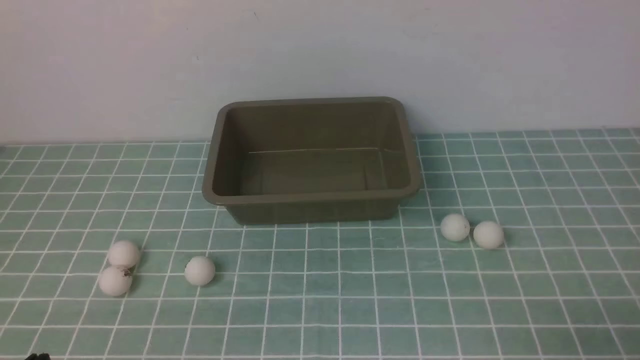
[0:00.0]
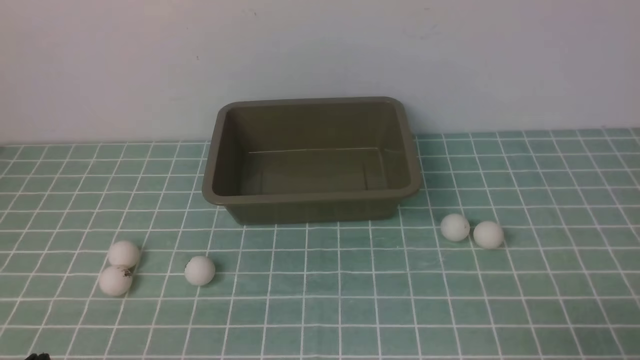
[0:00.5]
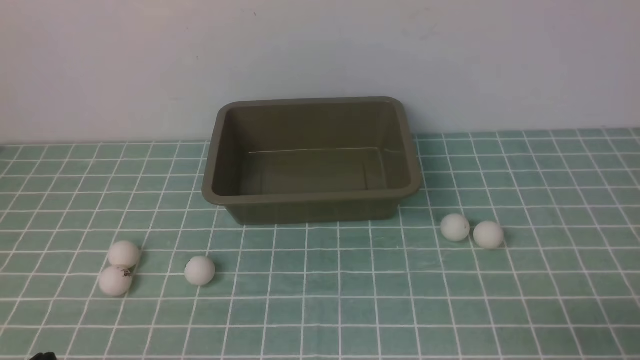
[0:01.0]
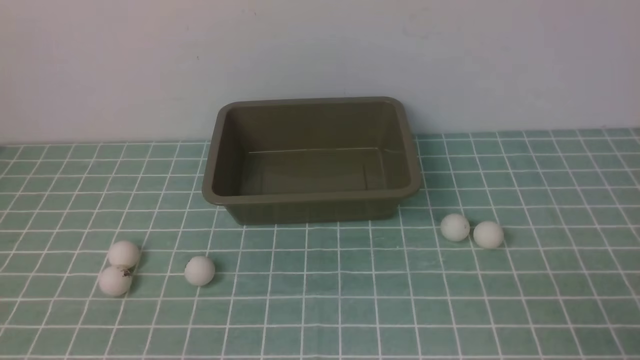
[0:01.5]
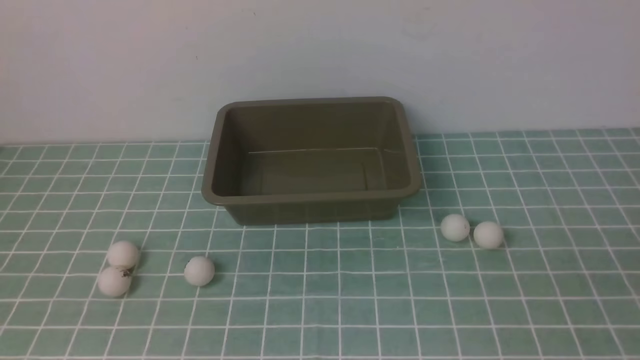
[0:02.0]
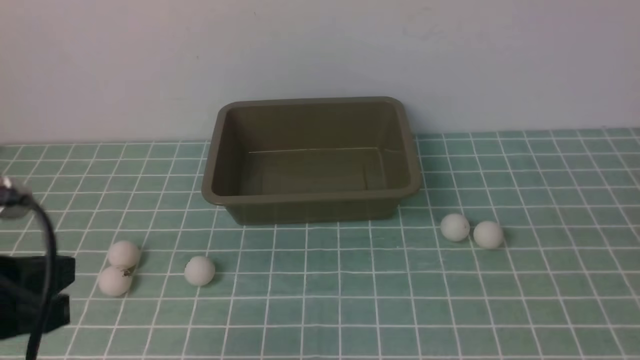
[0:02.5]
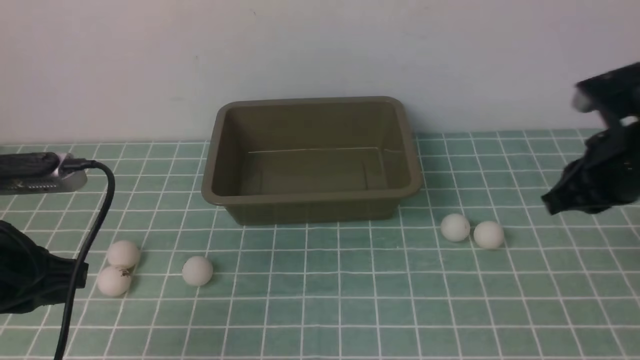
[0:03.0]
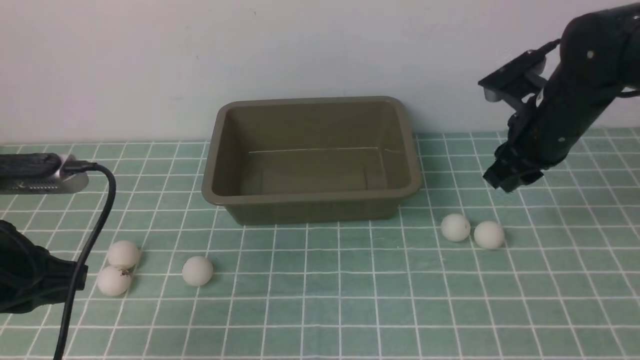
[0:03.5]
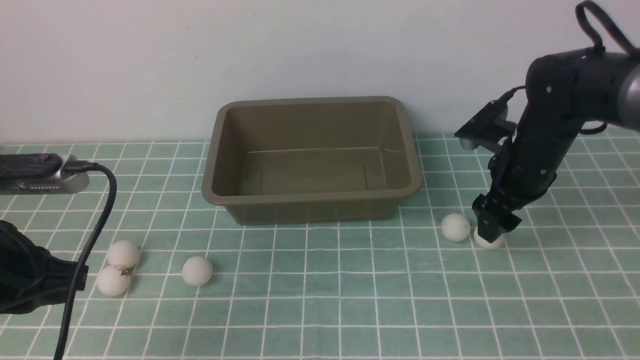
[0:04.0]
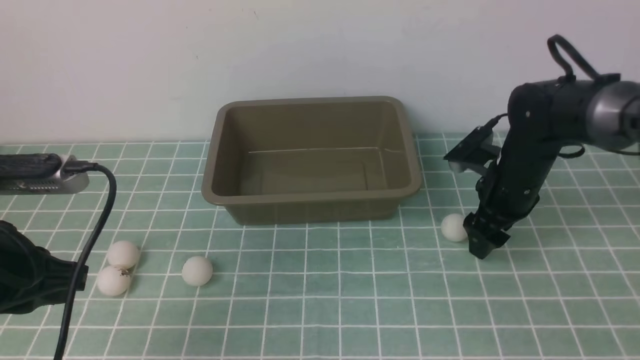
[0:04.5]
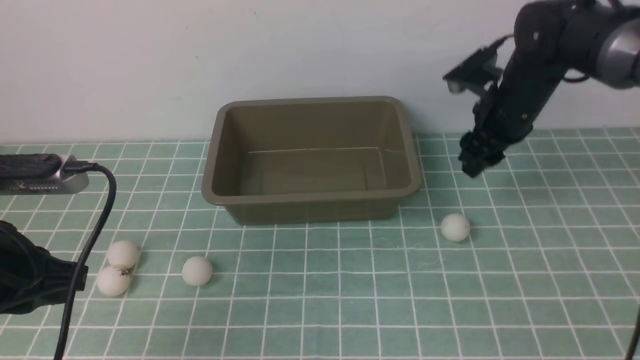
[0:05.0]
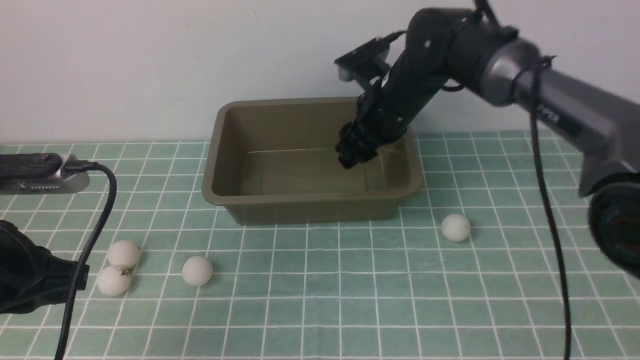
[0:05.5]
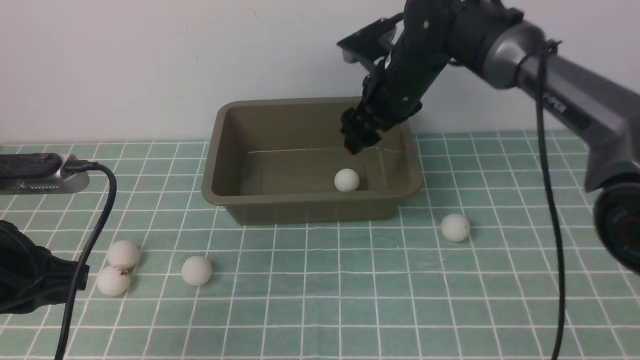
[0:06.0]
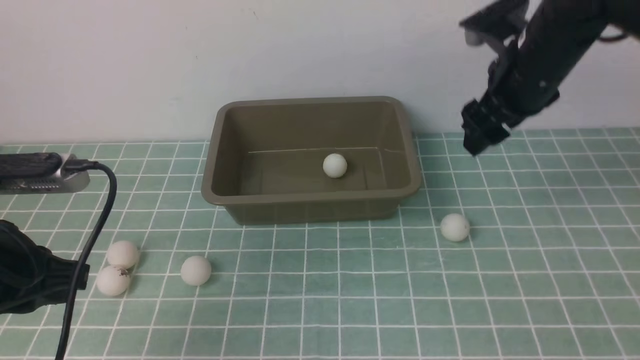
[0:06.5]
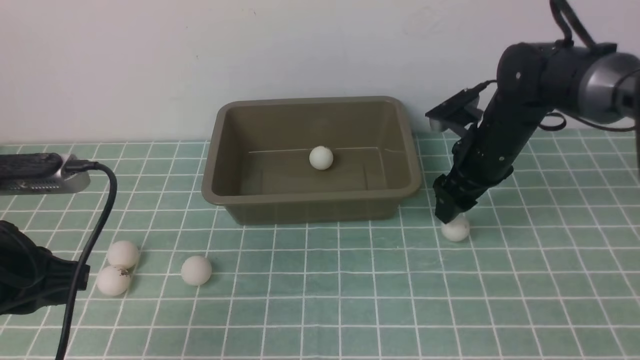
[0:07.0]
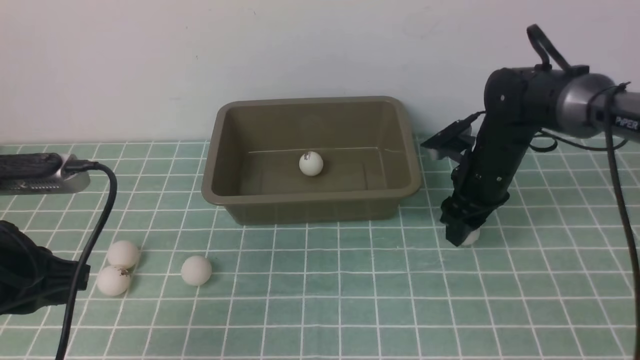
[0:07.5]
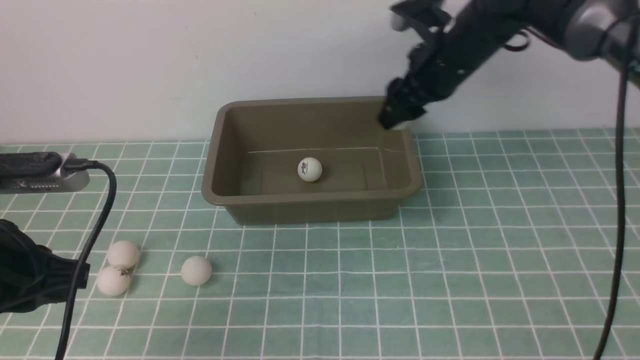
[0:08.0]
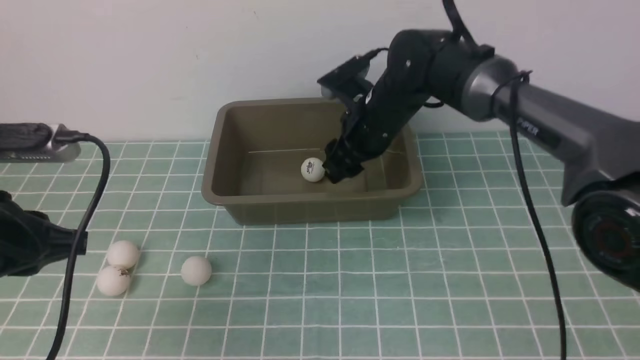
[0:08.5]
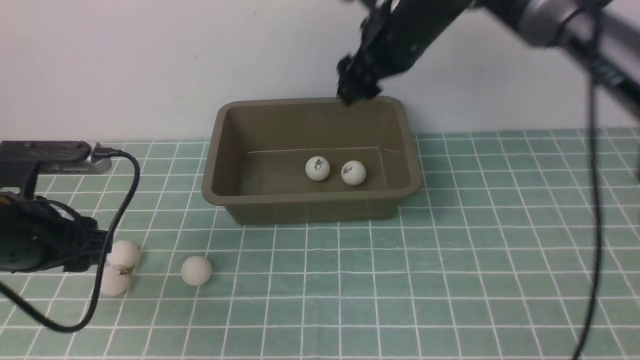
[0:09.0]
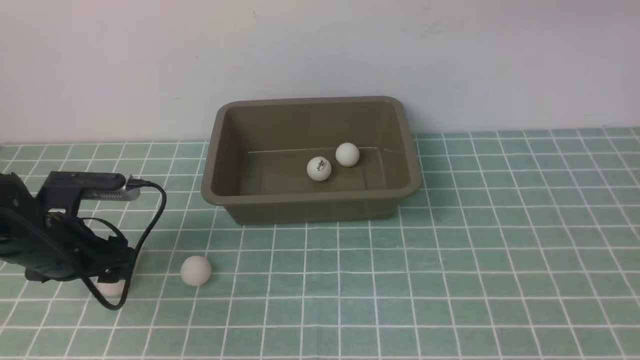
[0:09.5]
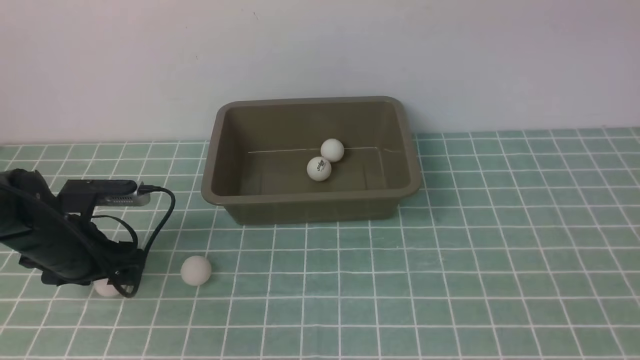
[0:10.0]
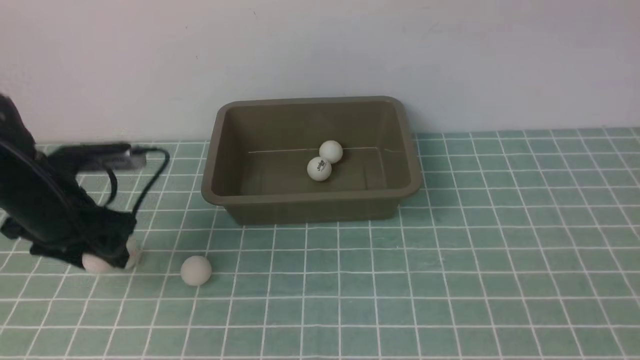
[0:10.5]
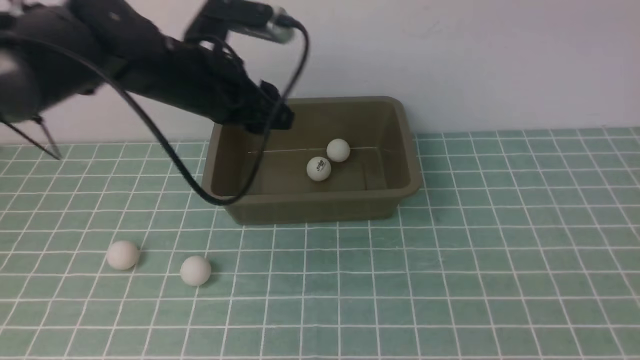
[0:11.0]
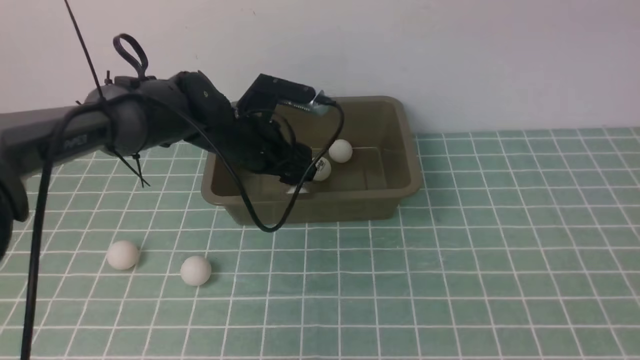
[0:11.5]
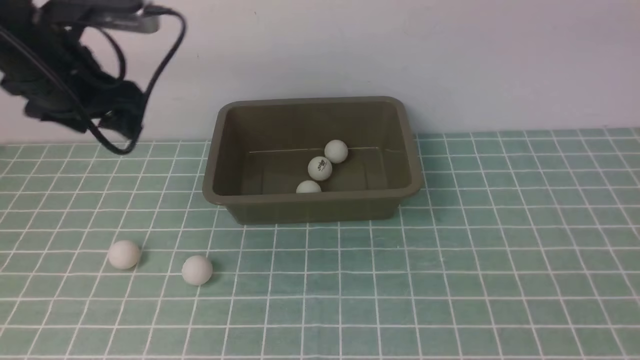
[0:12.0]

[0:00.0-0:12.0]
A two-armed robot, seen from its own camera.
Step, 0:00.0 to 0:05.0: use the right arm to clamp the table tennis ball closest to it.
Step, 0:05.5 to 0:06.0: use the right arm to put the table tennis ball into the box.
Step, 0:06.5 to 0:07.5: use the right arm to clamp the table tennis ball closest to it.
Step, 0:08.0 to 0:08.5: use the right arm to put the table tennis ball into the box.
Step, 0:09.0 to 0:10.0: use the left arm to clamp the table tennis ball closest to it.
Step, 0:11.0 to 0:11.5: use the left arm to put the table tennis ball into the box.
0:02.0 to 0:04.0: The left gripper moves forward, about 15 cm, while the right gripper moves forward, some 35 cm, and opens up.
0:04.0 to 0:06.0: The right gripper travels upward by roughly 15 cm.
0:06.0 to 0:08.0: The right gripper travels downward and back again, about 15 cm each way.
0:08.0 to 0:10.0: The left gripper goes about 20 cm downward and forward, and opens its fingers. The right gripper shifts roughly 40 cm upward, backward and to the right.
0:10.0 to 0:12.0: The left gripper is displaced upward by approximately 15 cm, and goes to the right and returns, some 20 cm each way.

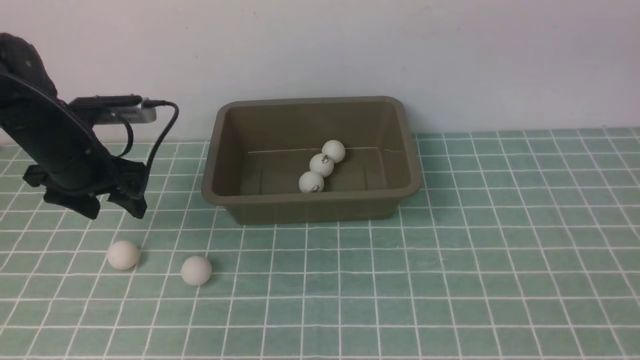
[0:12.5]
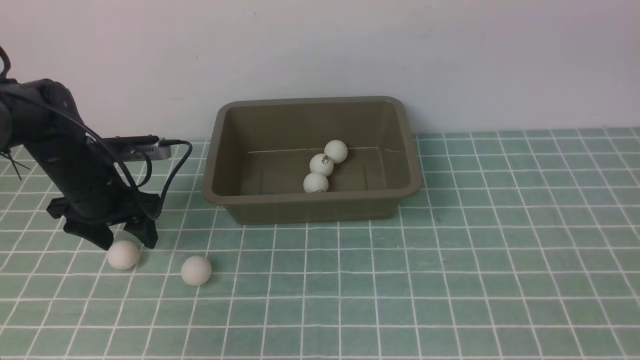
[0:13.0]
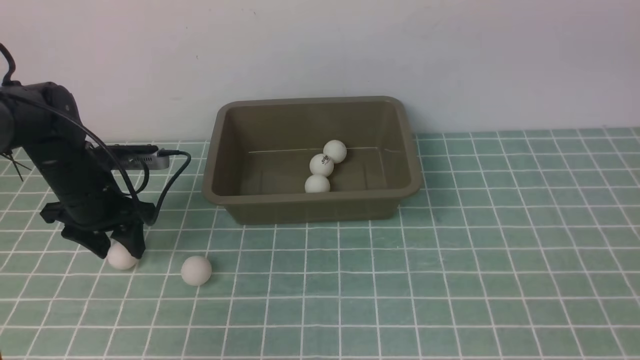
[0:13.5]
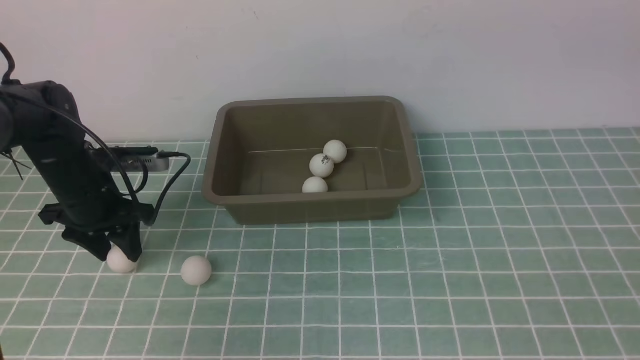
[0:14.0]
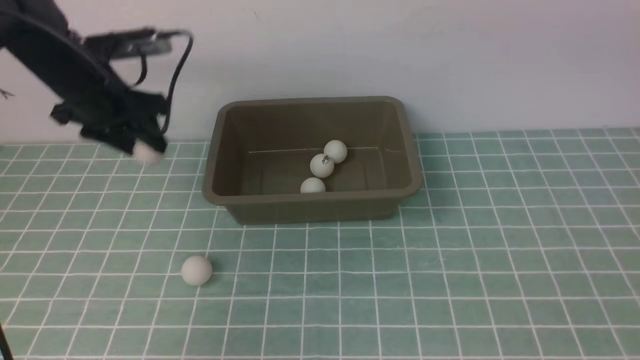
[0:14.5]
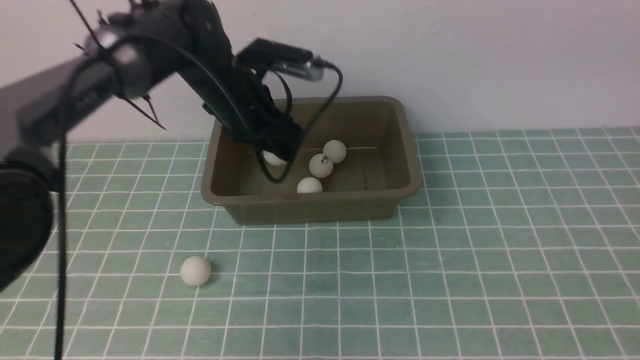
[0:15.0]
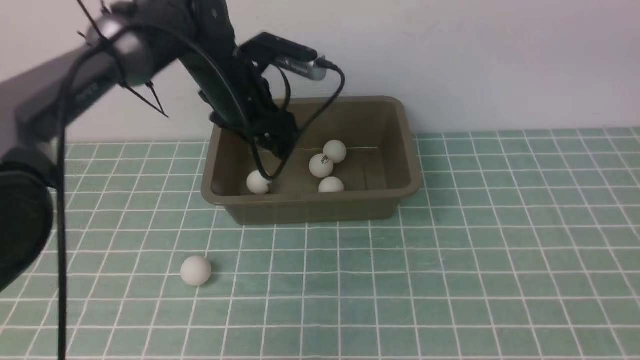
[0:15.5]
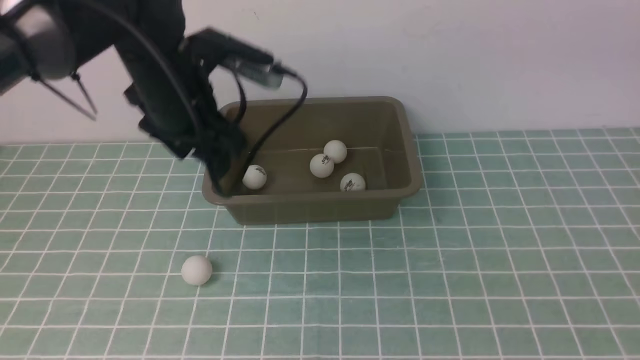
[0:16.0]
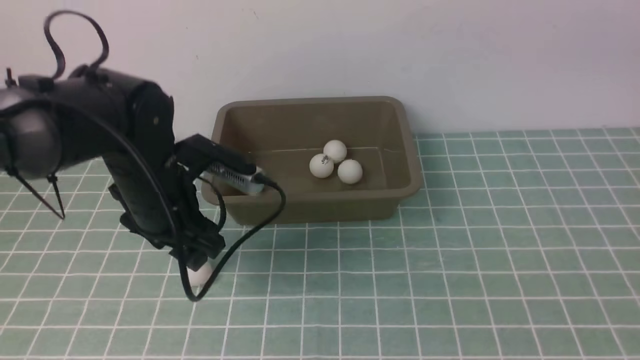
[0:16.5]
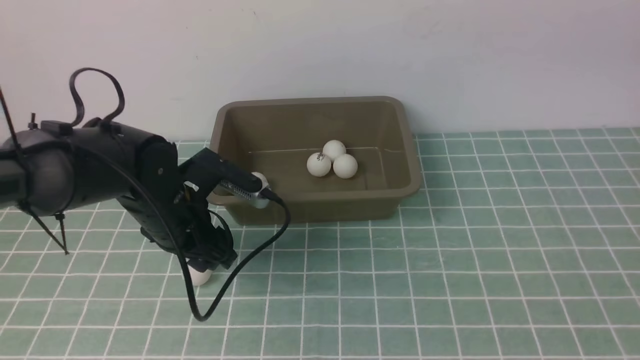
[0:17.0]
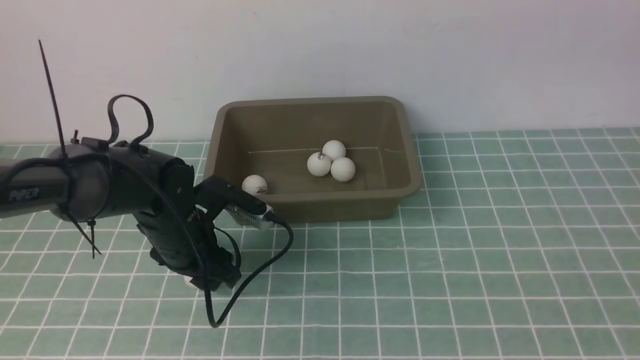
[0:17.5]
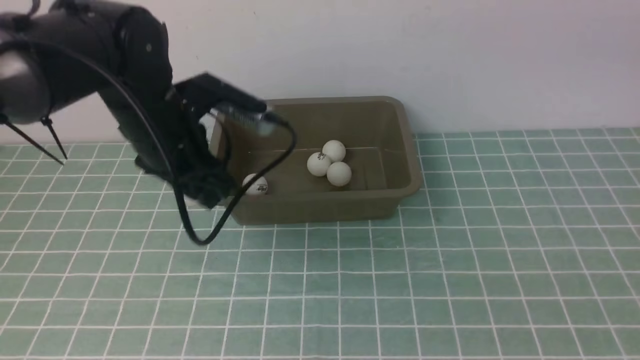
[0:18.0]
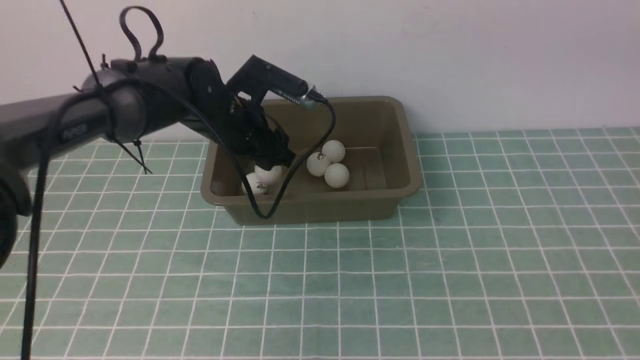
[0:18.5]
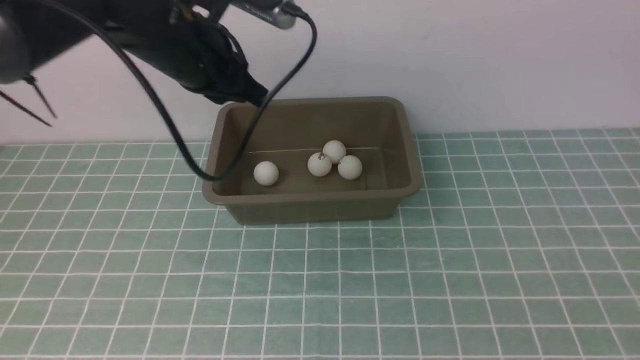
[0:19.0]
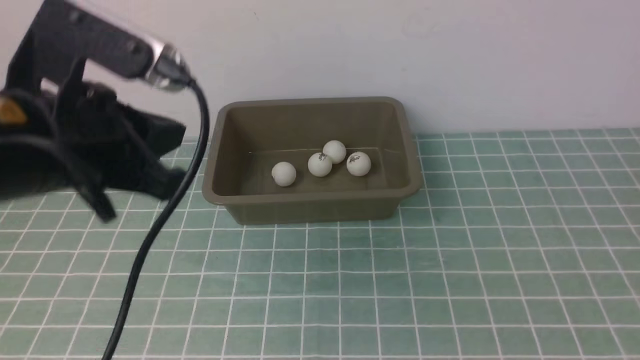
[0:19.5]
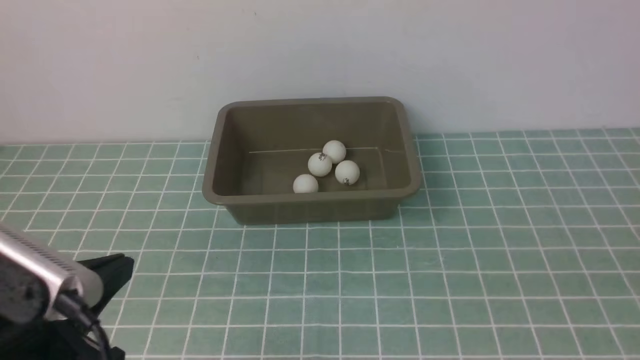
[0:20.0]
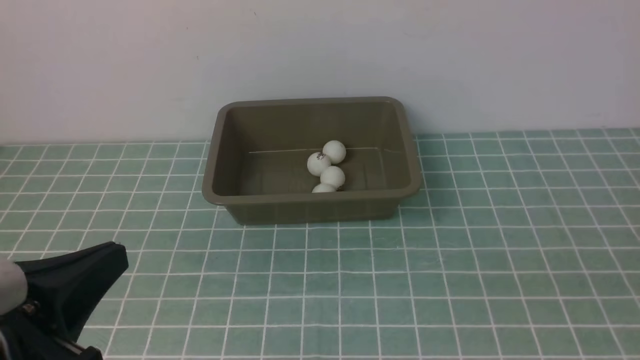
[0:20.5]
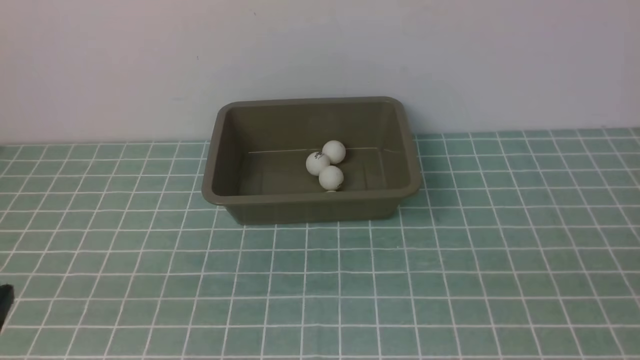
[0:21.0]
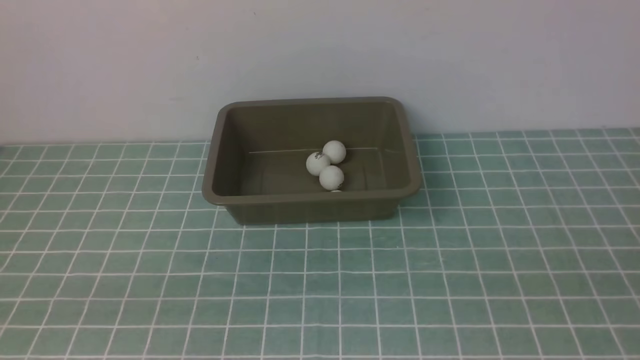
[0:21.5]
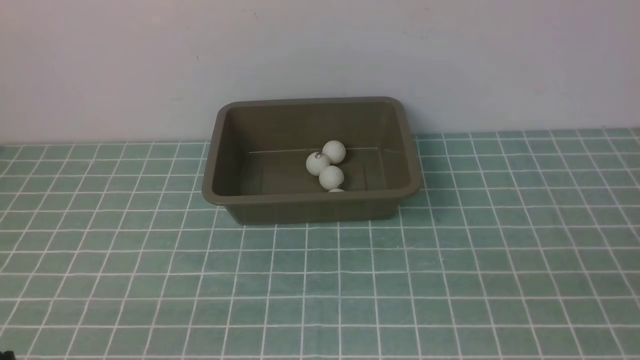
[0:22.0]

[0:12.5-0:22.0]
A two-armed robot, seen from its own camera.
Step, 0:12.5 to 0:14.0: use the left arm to clamp the table tennis ball closest to it.
Step, 0:14.5 to 0:15.0: use the left arm to put the table tennis ball into the box.
Step, 0:15.5 to 0:17.5: use the left arm to clamp the table tennis ball closest to it.
Step, 0:18.0 to 0:18.5: use the left arm to put the table tennis ball into the box.
0:12.5 to 0:14.5: The left gripper is displaced to the right and upward by some 10 cm, and closes its fingers.
0:14.5 to 0:16.5: The left gripper shifts about 15 cm backward, downward and to the right.
0:16.5 to 0:18.0: The left gripper is displaced forward by roughly 10 cm.
0:18.0 to 0:20.0: The right gripper moves downward and backward, roughly 25 cm, and closes its fingers, while the left gripper is displaced backward by approximately 35 cm, and closes its fingers.
0:20.0 to 0:22.0: The left gripper moves downward, roughly 10 cm.
